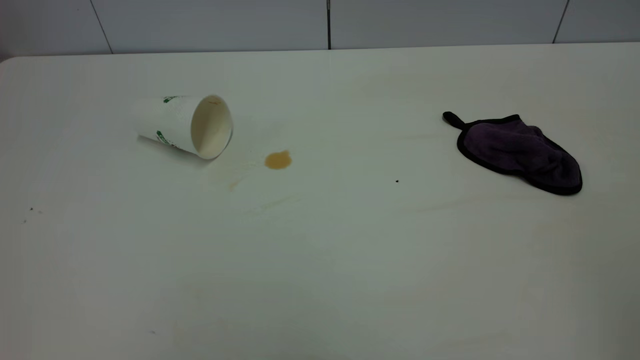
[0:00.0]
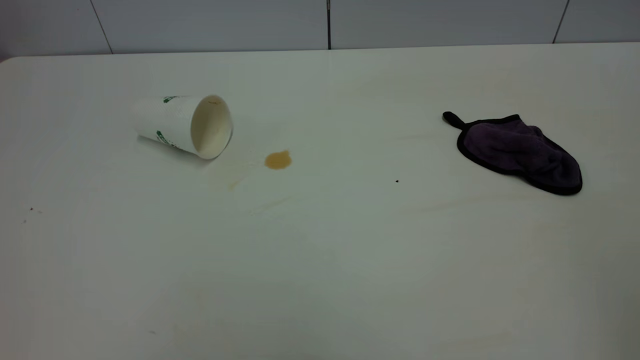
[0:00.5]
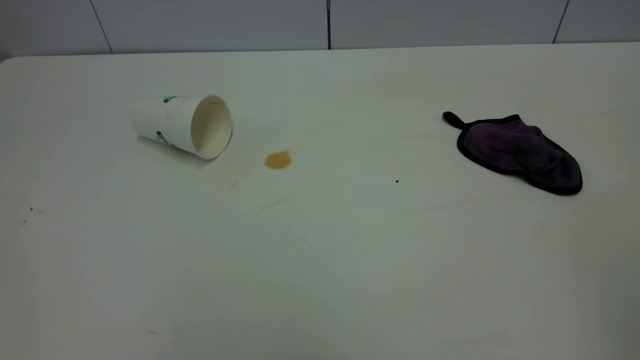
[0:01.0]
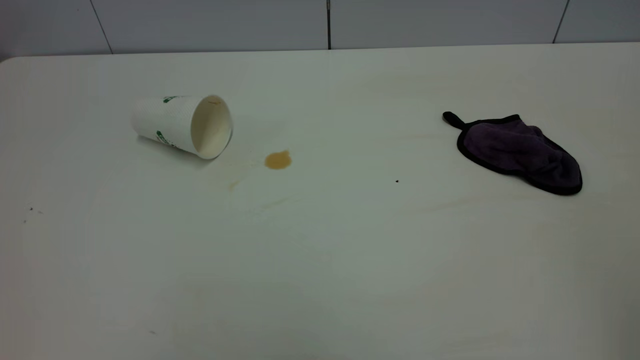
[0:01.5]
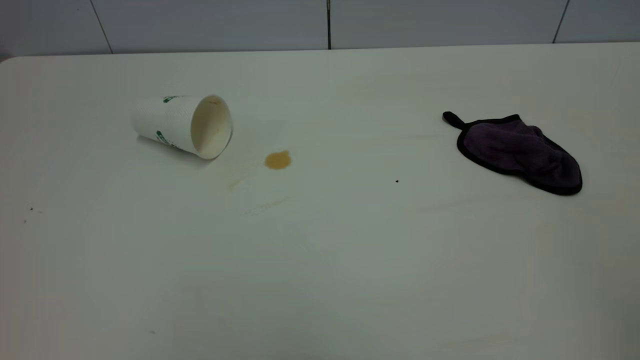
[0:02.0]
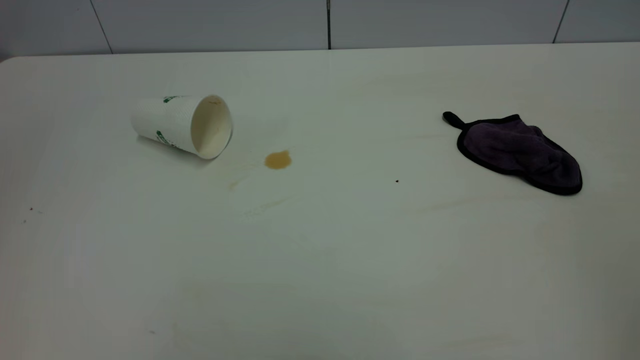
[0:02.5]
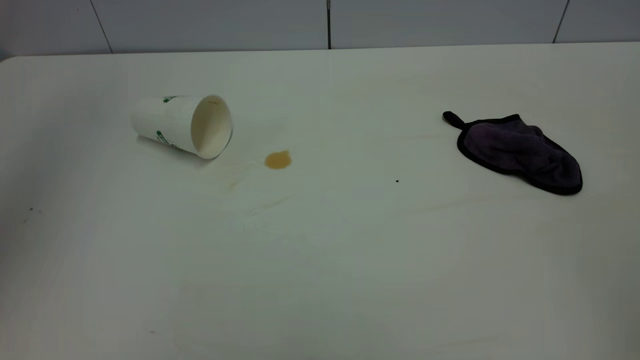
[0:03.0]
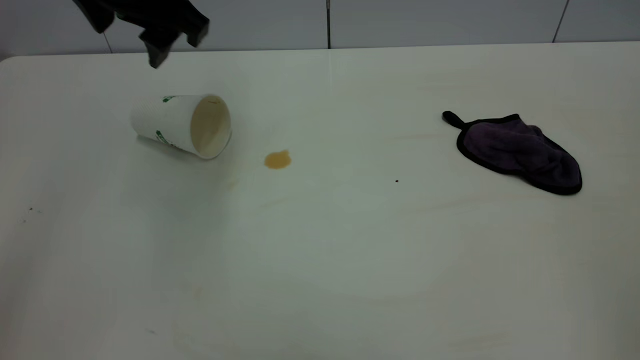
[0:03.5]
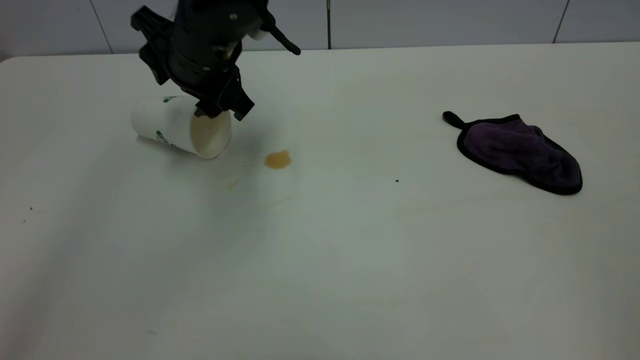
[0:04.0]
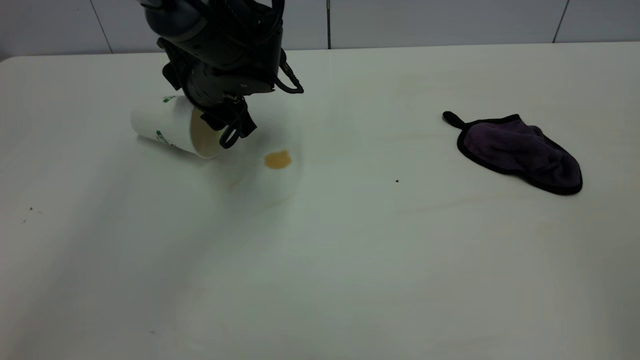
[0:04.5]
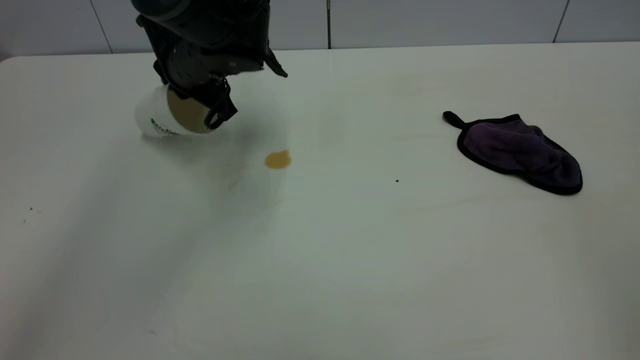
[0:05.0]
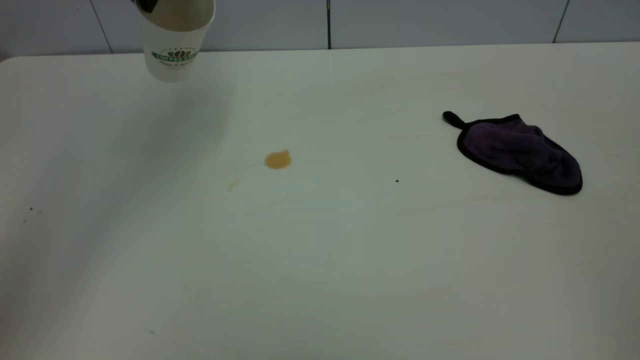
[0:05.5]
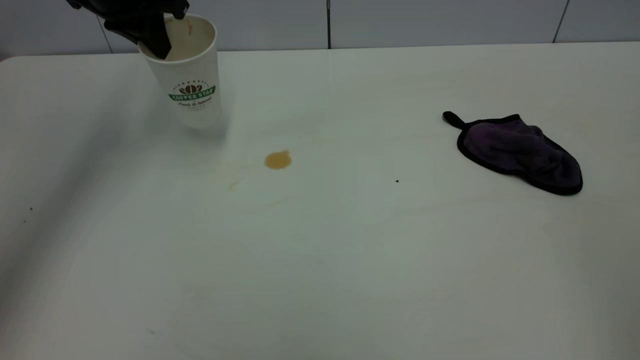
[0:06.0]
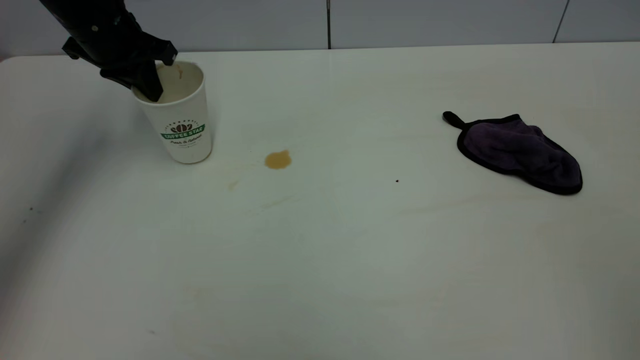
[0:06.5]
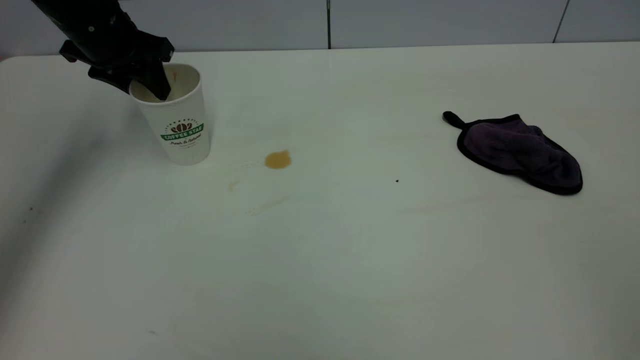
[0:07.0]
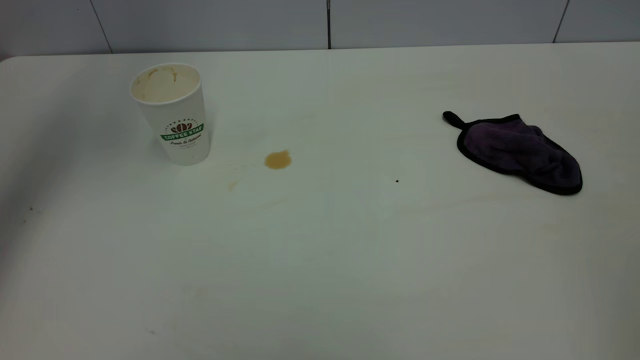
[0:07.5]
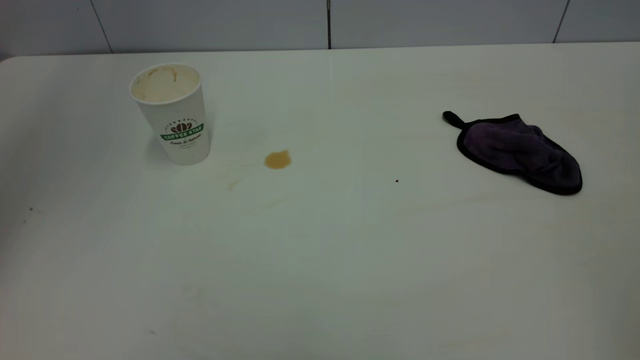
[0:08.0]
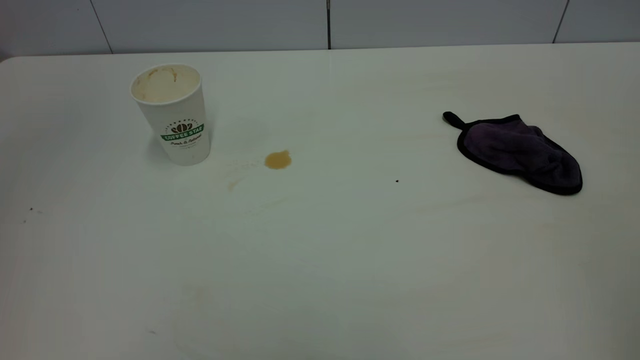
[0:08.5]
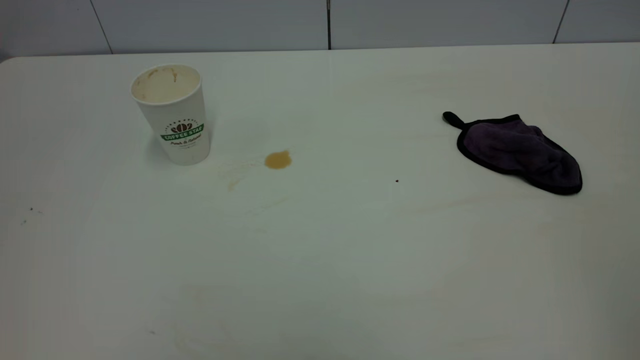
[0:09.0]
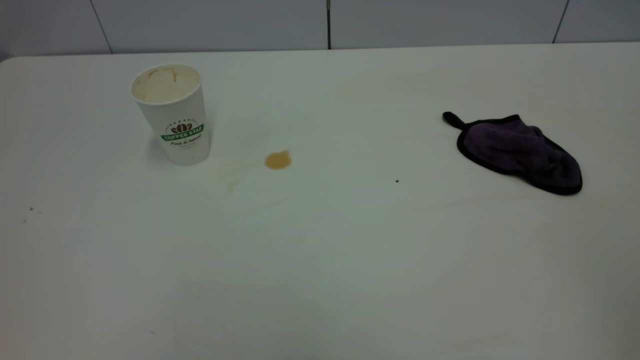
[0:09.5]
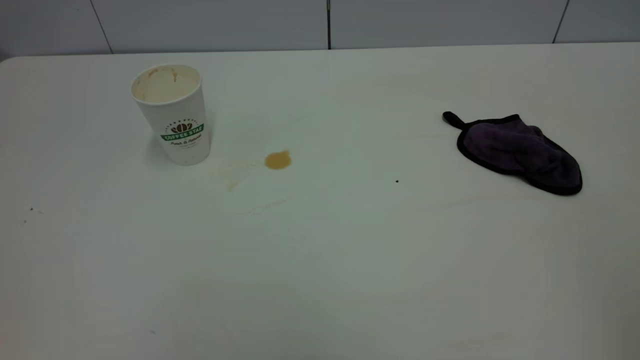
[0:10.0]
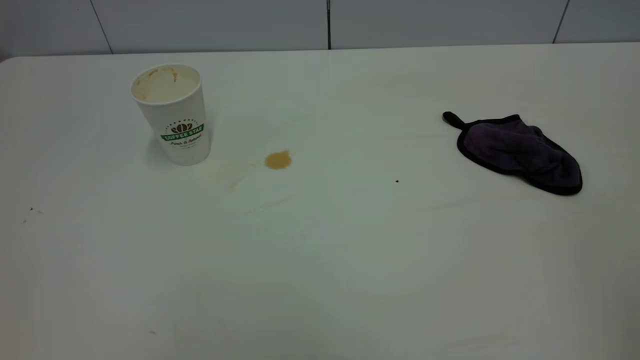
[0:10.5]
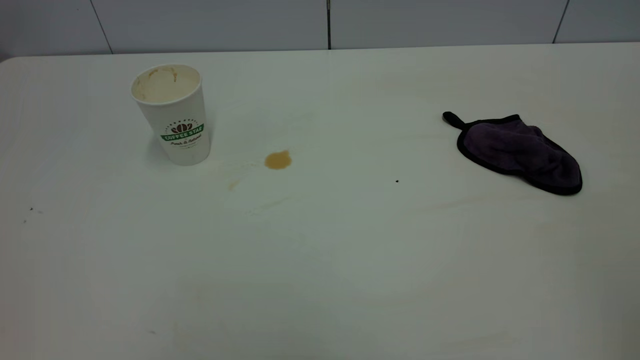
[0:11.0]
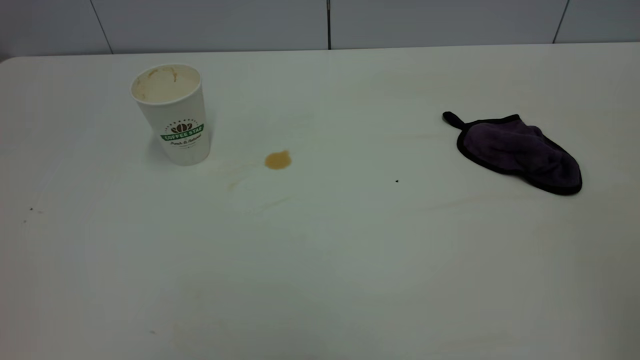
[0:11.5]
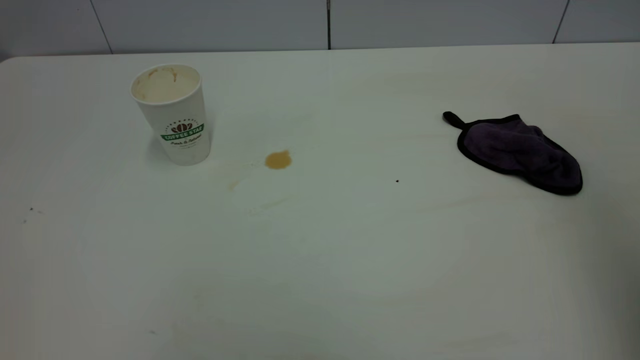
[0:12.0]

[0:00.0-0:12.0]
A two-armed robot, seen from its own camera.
Task of the whole recording: the left gripper pick up the fallen cup and place it upright, the right gripper grasp the purple rag and wipe the tea stain on the table, the right gripper put the purple rag back in its original position.
Step, 0:00.0 to 0:07.0: Stand the paper cup upright.
0:00.0 to 0:02.0: Both grippers stay put.
0:02.0 to 0:04.0: The left gripper goes approximately 50 cm forward, to the right and downward, and opens.
0:04.0 to 0:06.0: The left gripper goes up and down, roughly 15 cm each way, reversing 2 times, and closes its fingers.
0:06.0 to 0:08.0: The left gripper travels upward and backward by roughly 30 cm, and opens.
0:08.0 to 0:10.0: The left gripper goes approximately 35 cm backward.

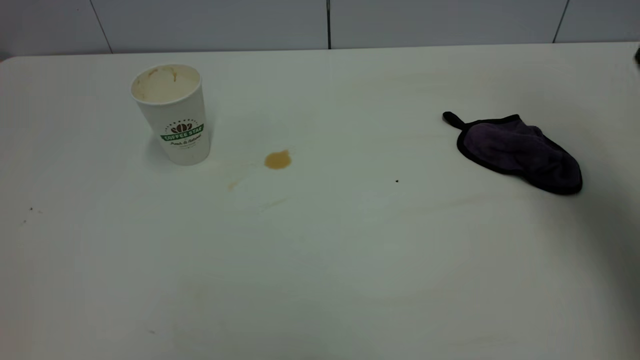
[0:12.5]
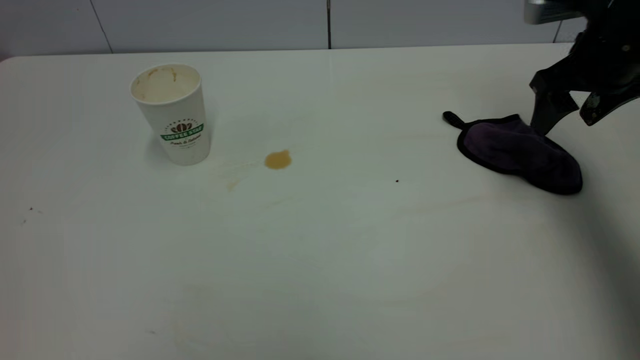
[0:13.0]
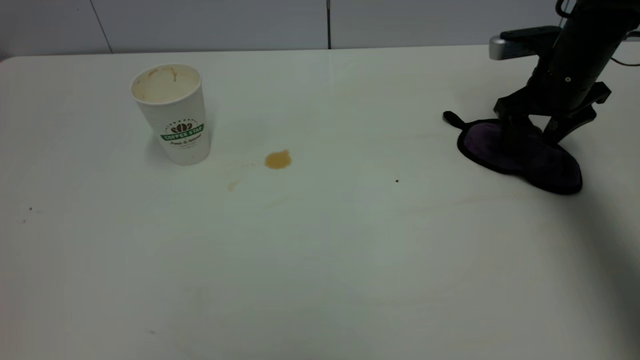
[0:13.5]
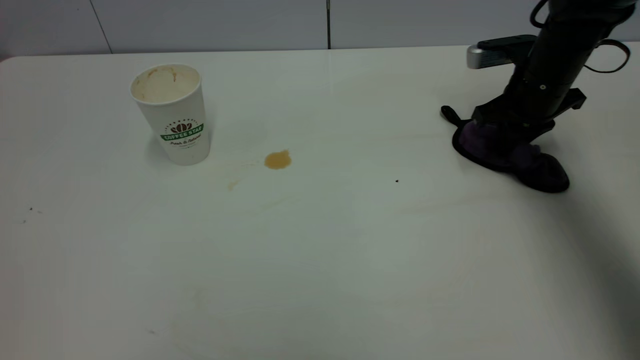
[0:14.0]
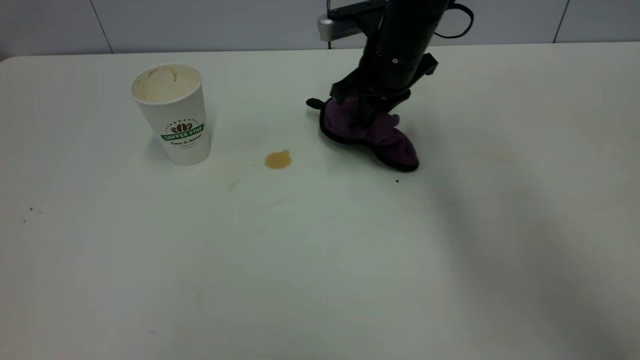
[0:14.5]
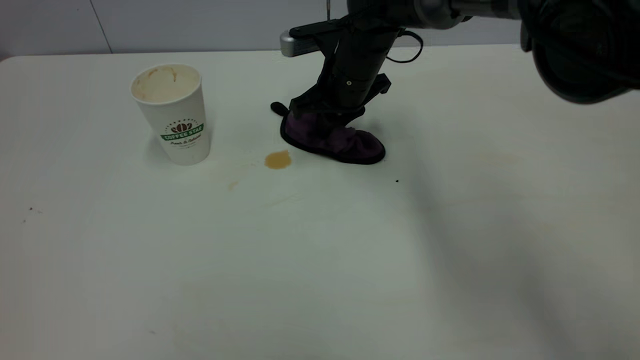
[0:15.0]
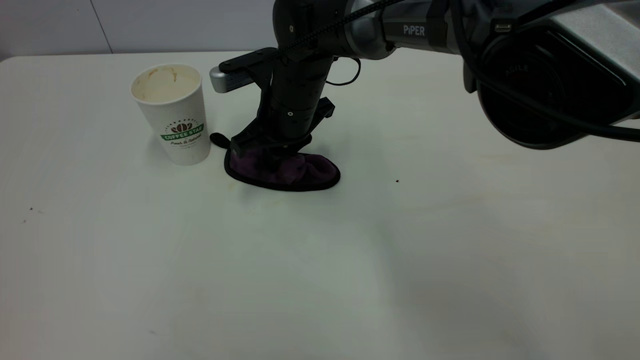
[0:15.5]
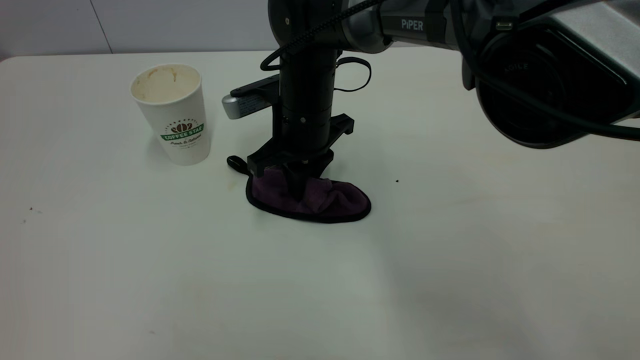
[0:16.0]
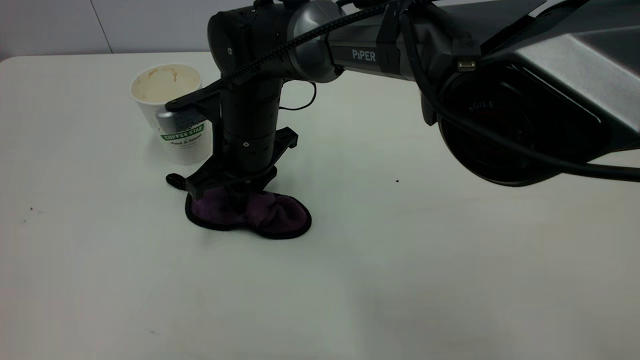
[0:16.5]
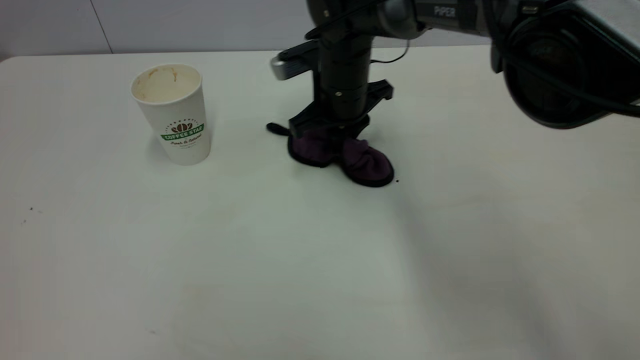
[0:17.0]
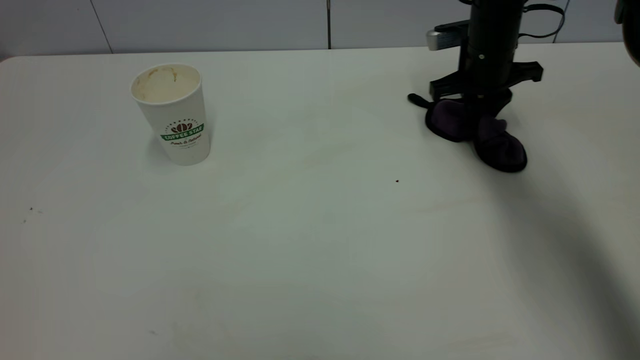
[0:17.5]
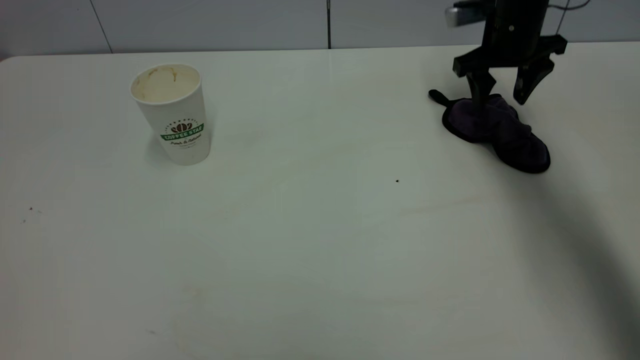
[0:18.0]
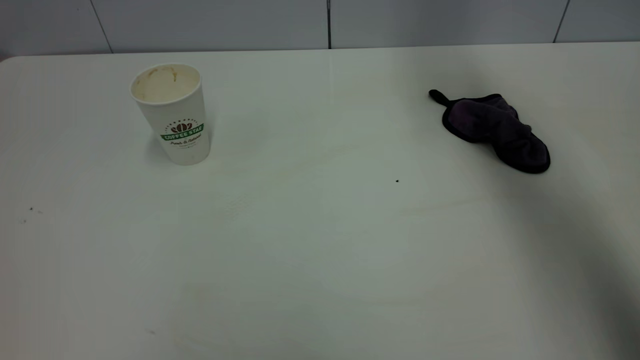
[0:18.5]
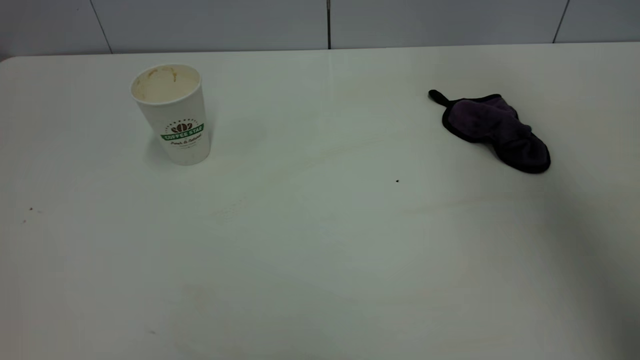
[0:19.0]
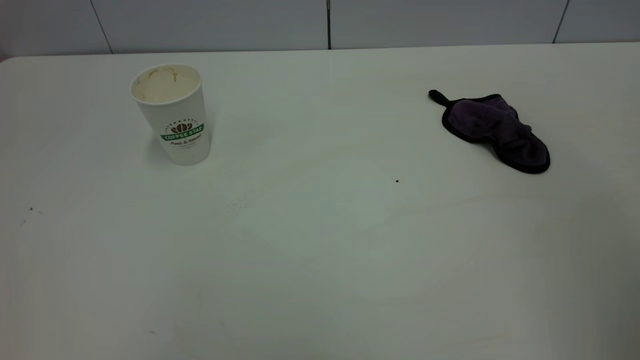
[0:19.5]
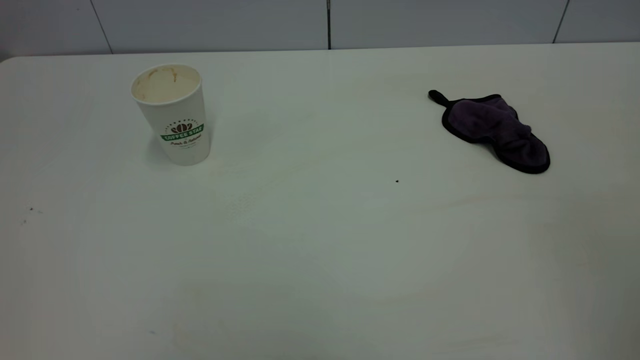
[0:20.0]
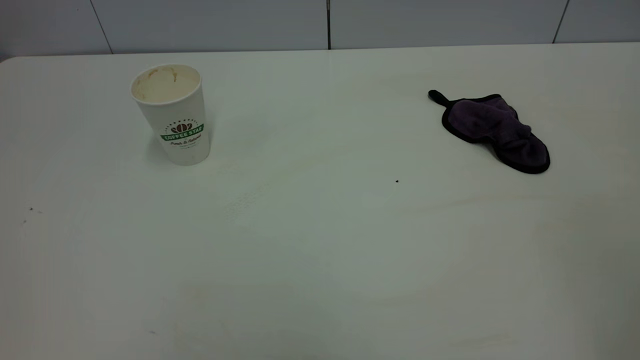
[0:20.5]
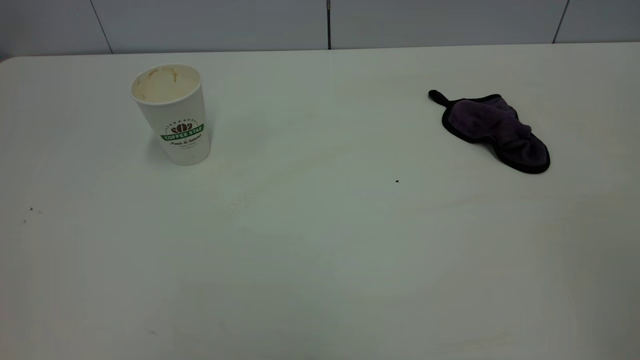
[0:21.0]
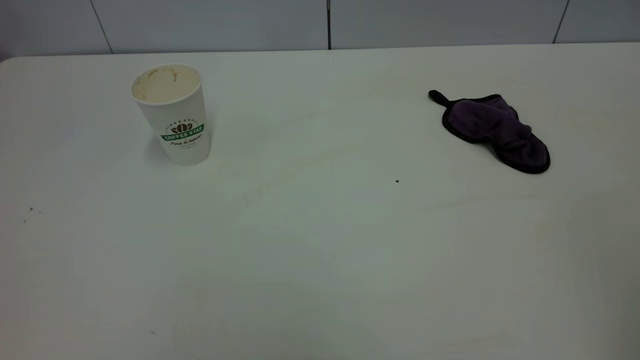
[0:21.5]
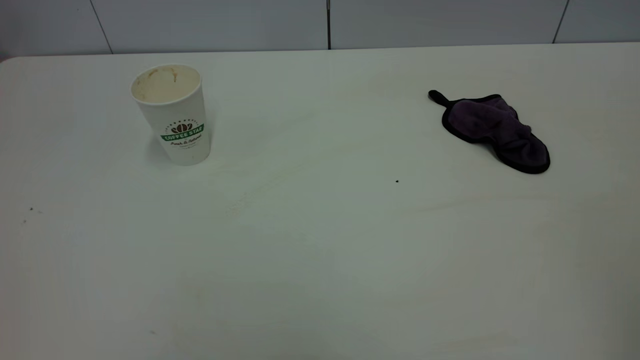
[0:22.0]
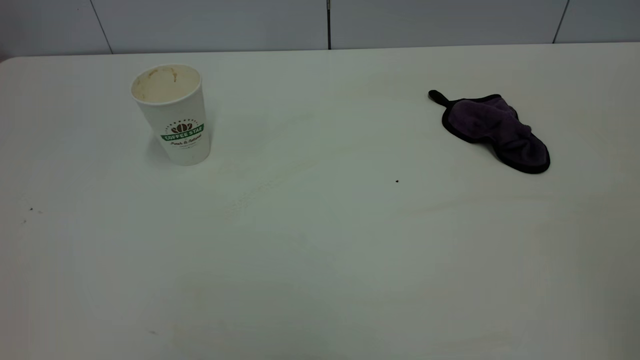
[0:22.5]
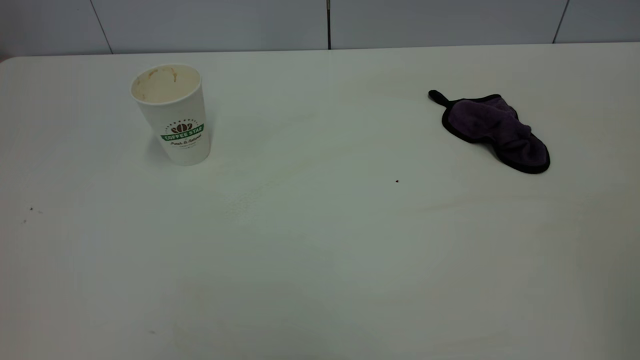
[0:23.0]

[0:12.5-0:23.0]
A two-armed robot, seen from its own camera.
Task of the whole recording: the left gripper pick up the fallen cup and place it upright, the right gripper grasp the purple rag and wipe the tea stain on the table, the right gripper put the purple rag back in its original position.
Step, 0:12.5 to 0:18.0: Wipe the stains off the table with a rag.
0:12.5 to 0:14.5: The right gripper shifts approximately 30 cm to the left, forward and downward, and closes its fingers.
0:14.5 to 0:16.5: The right gripper heads to the left and backward, covering approximately 20 cm.
0:16.5 to 0:19.0: The right gripper is displaced upward and to the right by some 50 cm, and opens.
0:19.0 to 0:21.0: The right gripper moves backward, roughly 30 cm.
